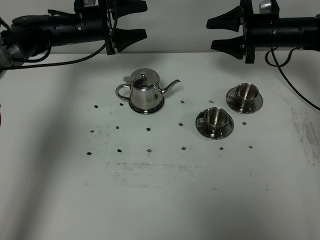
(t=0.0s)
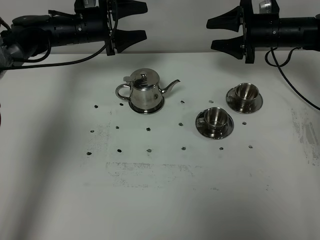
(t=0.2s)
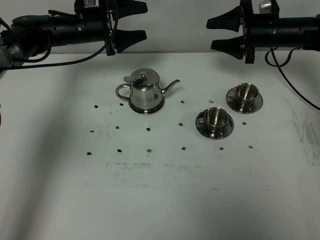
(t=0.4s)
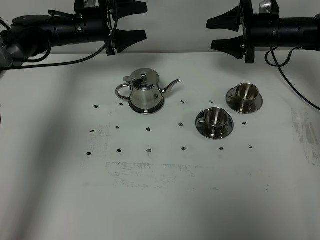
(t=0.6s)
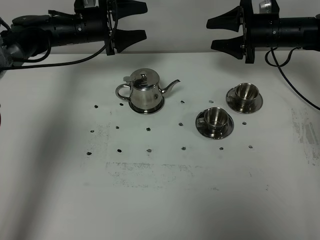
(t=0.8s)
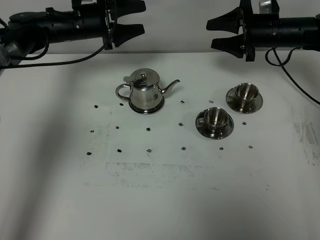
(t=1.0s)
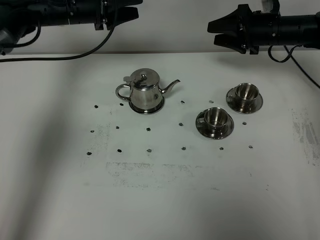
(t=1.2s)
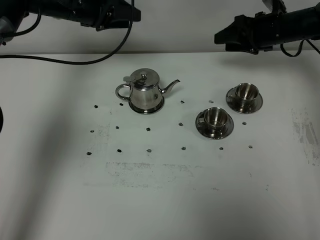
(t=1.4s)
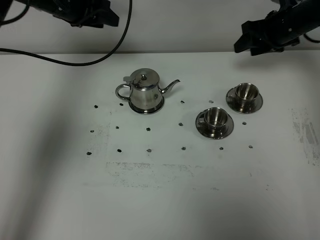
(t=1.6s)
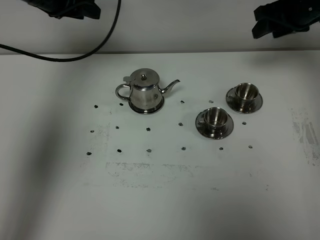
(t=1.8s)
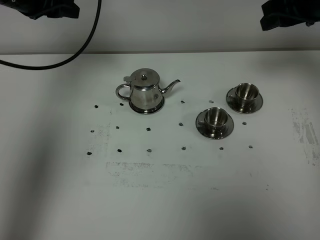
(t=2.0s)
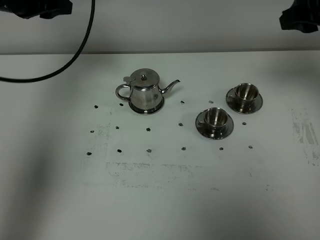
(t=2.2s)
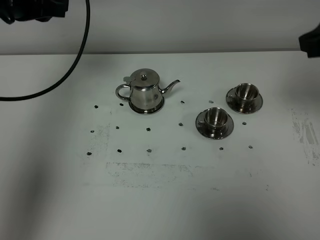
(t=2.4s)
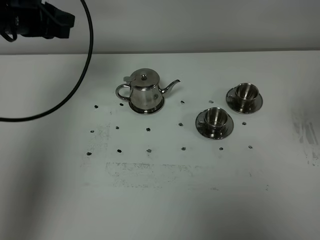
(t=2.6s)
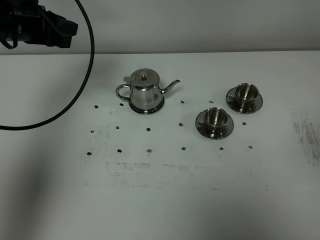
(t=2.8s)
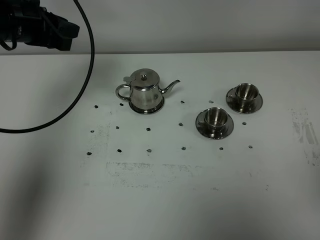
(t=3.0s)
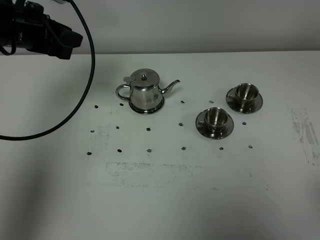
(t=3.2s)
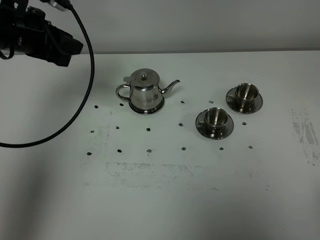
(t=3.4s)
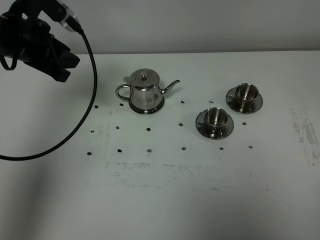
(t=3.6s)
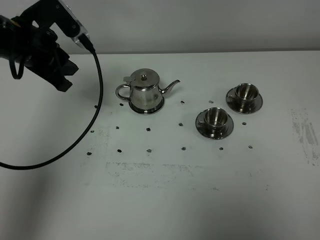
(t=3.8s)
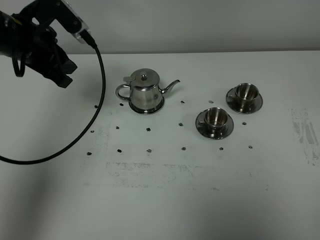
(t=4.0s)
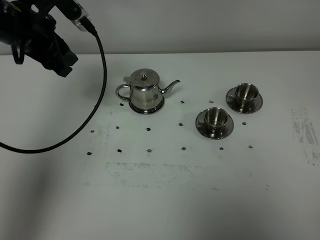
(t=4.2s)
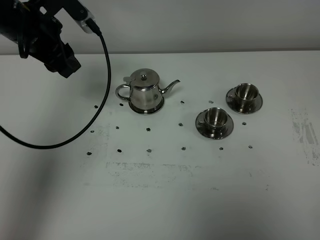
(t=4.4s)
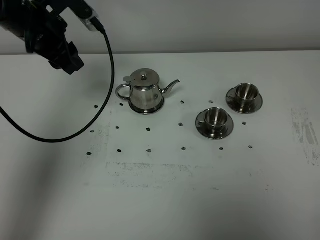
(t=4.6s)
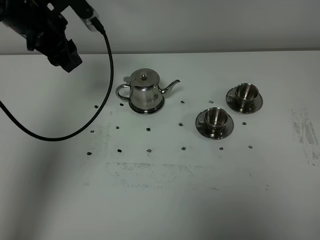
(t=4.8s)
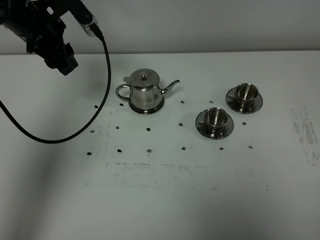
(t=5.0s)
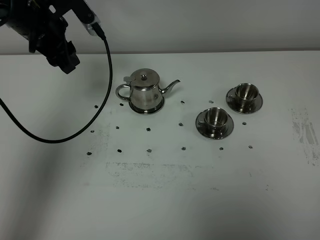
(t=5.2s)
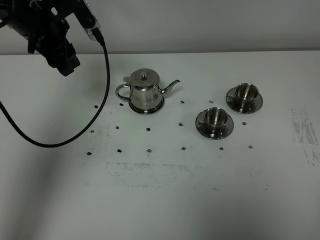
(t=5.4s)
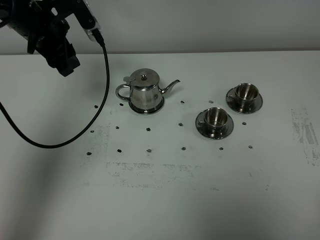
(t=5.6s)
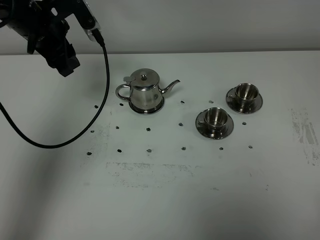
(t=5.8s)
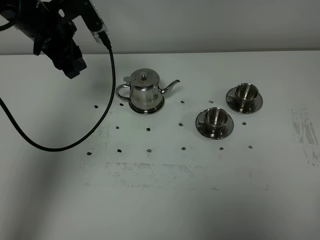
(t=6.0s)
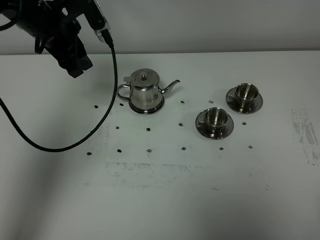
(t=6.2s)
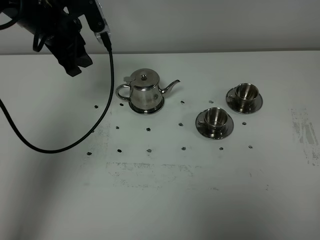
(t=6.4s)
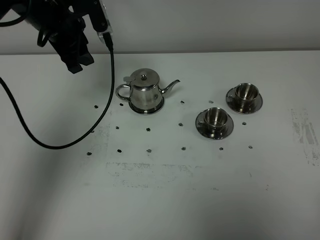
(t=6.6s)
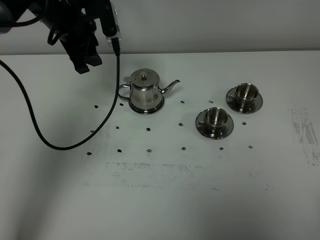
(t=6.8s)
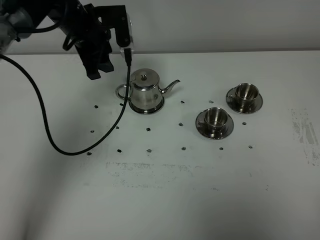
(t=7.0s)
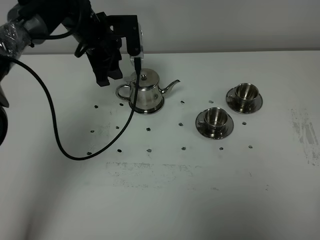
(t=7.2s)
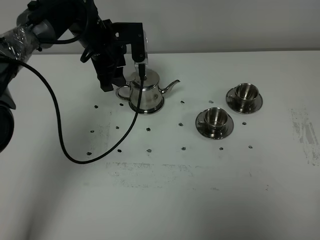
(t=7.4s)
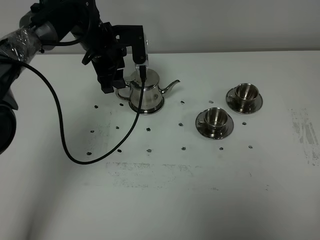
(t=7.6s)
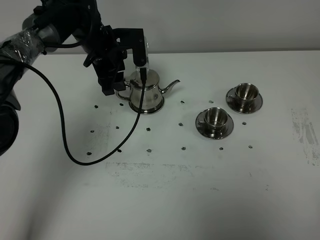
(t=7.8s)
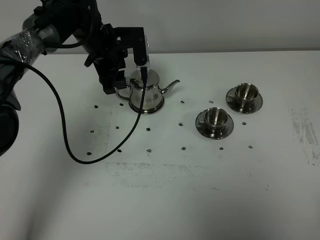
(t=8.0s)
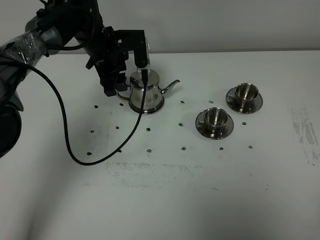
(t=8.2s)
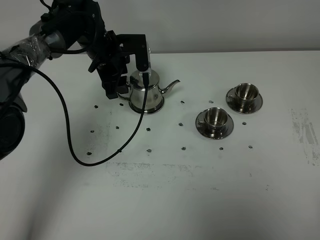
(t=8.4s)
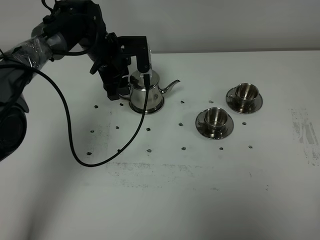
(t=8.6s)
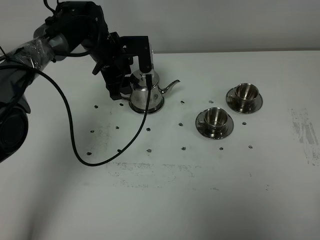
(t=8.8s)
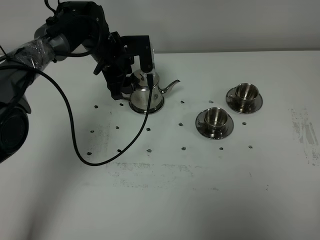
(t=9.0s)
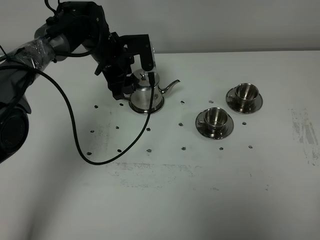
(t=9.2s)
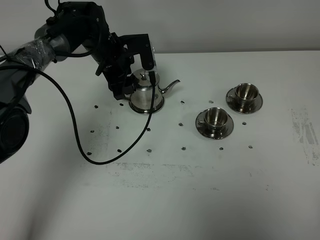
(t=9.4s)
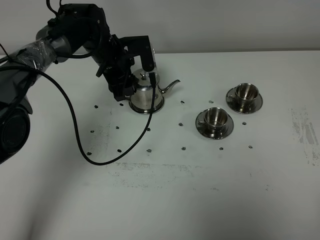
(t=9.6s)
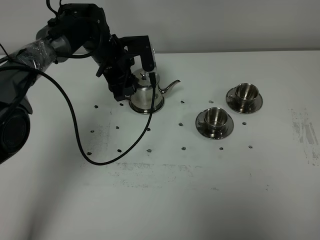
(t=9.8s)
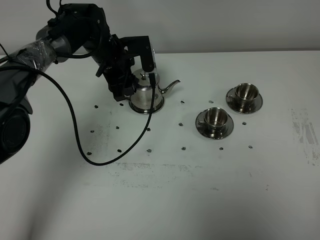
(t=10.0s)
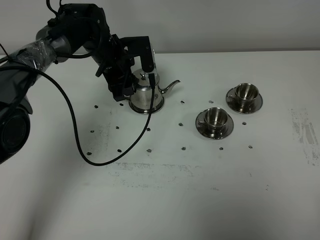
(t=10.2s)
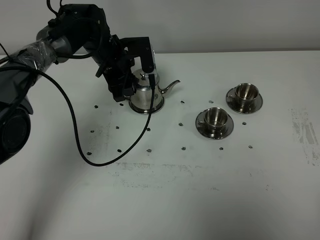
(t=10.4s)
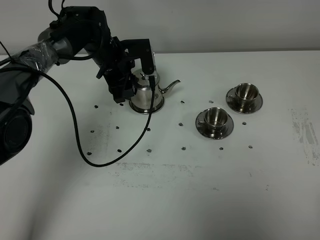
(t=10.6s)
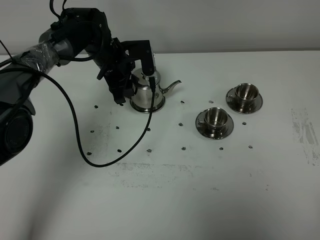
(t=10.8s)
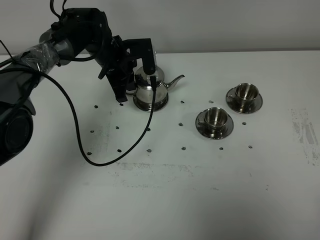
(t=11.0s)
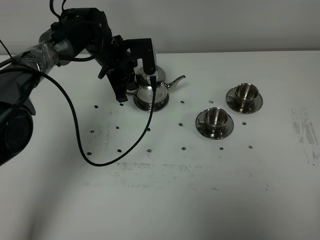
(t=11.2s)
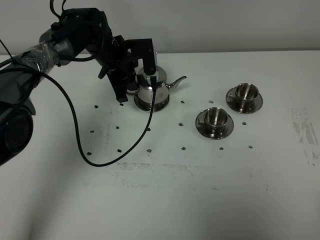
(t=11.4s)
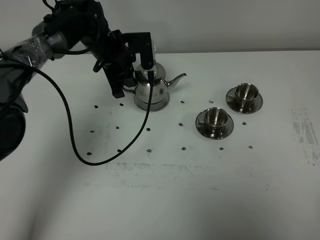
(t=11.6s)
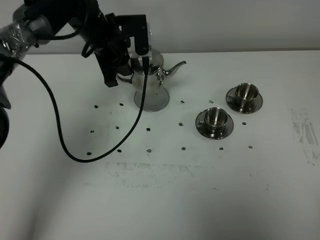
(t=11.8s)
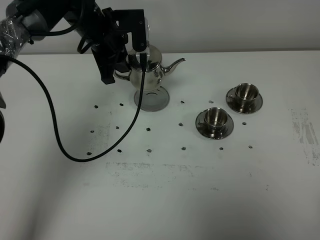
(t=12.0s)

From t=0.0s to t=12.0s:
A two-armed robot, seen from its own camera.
Task of the whole recording: grasp the stainless steel teapot and pour the tea into the two stainless steel teacups one by one, put the stainless steel teapot back in its original place.
Step, from t=0.0s to t=11.6s: Pick up the teapot with the left gripper.
From t=0.0s to t=1.6s: The right gripper ends up approximately 5 cm from where it was, and closes up. Meanwhile the left gripper travels upward by some 10 cm, and closes.
From t=1.6s to t=3.0s: The right gripper travels backward by roughly 50 cm, while the left gripper moves backward, roughly 15 cm.
From t=4.4s to t=6.0s: The grippers move only a little.
From t=6.0s to t=7.6s: The left gripper shifts some 10 cm to the right and downward.
From t=7.6s to t=9.0s: The grippers move only a little.
From t=9.0s to t=10.4s: The two grippers keep their place.
From t=10.4s to t=12.0s: The left gripper shifts roughly 10 cm upward, and closes.

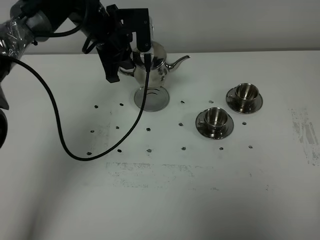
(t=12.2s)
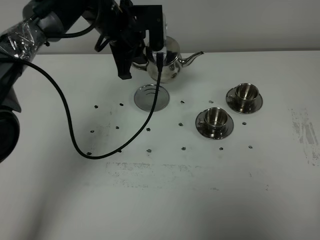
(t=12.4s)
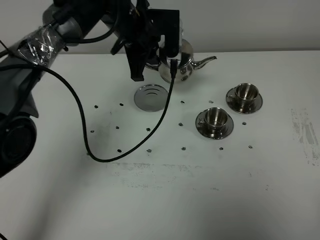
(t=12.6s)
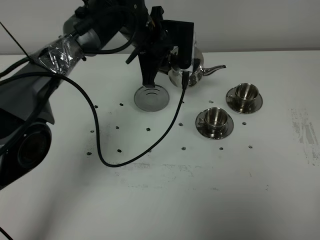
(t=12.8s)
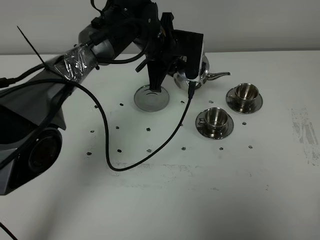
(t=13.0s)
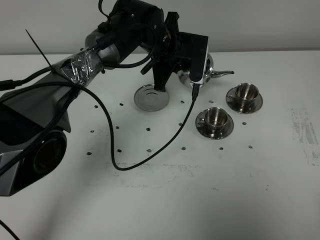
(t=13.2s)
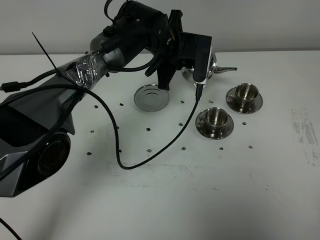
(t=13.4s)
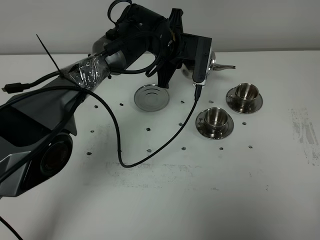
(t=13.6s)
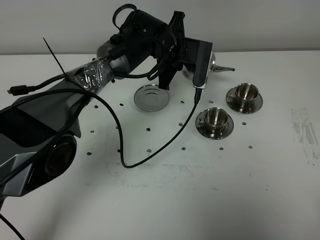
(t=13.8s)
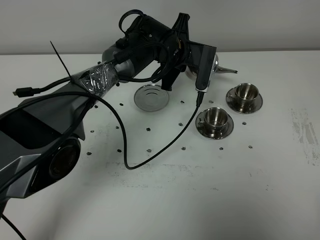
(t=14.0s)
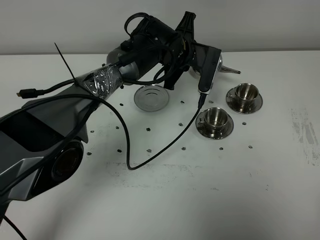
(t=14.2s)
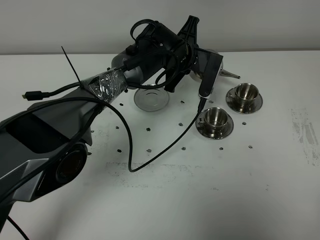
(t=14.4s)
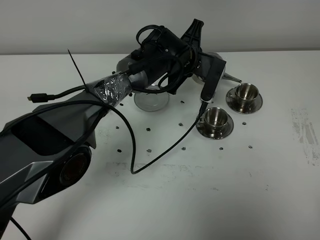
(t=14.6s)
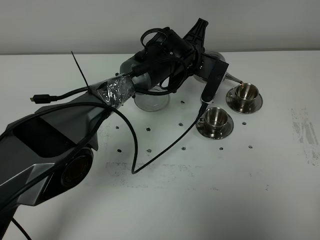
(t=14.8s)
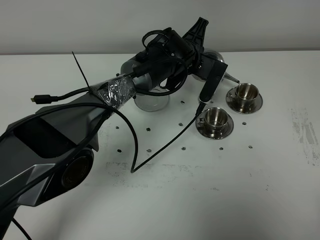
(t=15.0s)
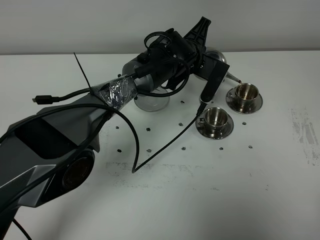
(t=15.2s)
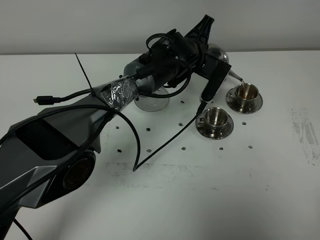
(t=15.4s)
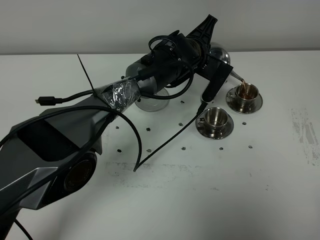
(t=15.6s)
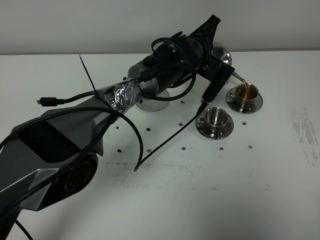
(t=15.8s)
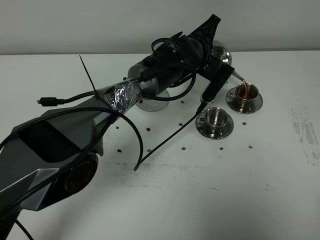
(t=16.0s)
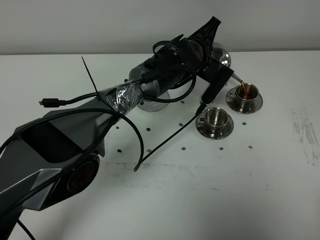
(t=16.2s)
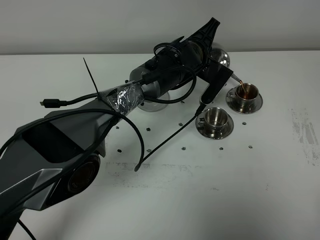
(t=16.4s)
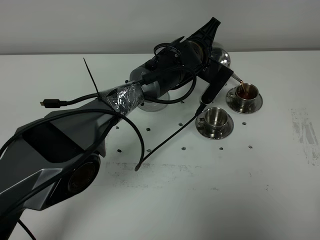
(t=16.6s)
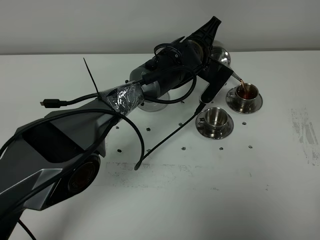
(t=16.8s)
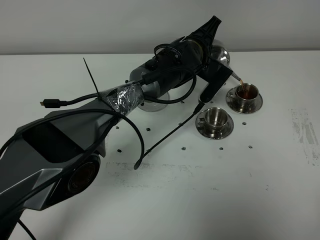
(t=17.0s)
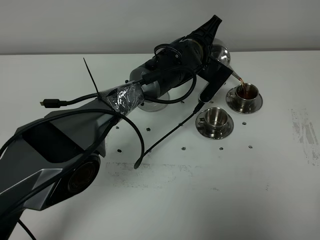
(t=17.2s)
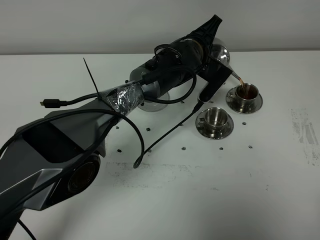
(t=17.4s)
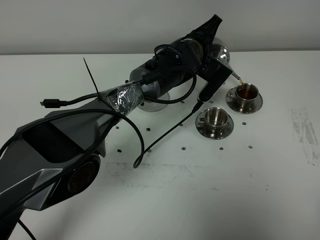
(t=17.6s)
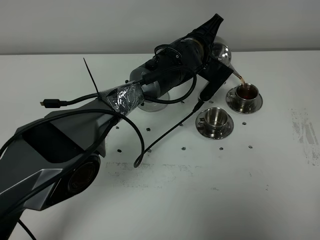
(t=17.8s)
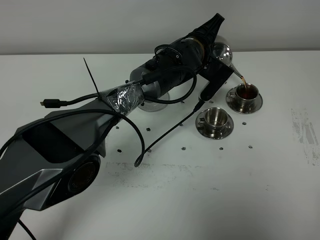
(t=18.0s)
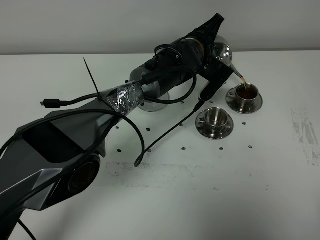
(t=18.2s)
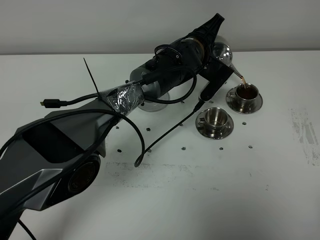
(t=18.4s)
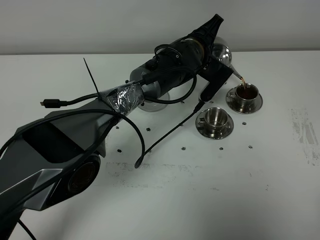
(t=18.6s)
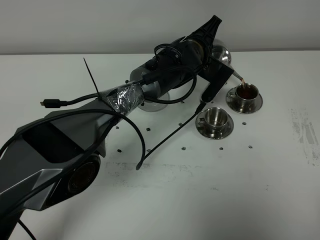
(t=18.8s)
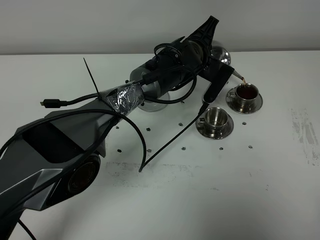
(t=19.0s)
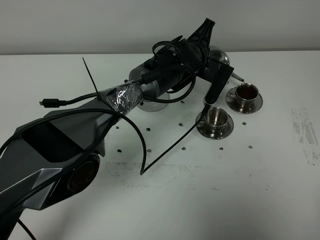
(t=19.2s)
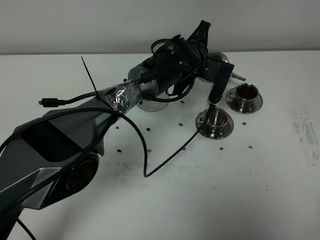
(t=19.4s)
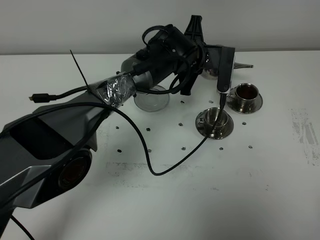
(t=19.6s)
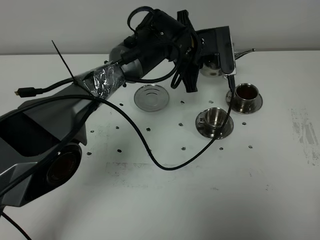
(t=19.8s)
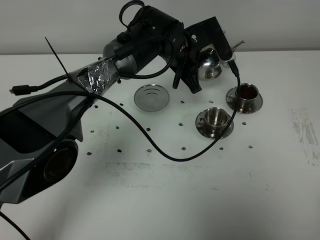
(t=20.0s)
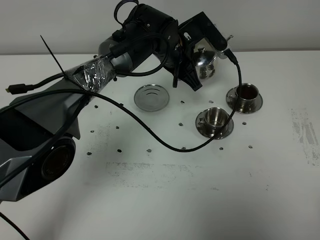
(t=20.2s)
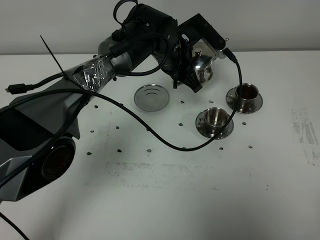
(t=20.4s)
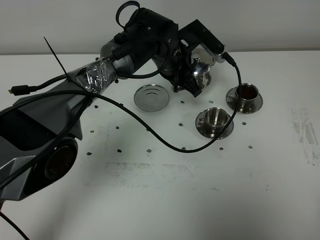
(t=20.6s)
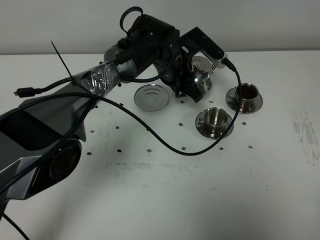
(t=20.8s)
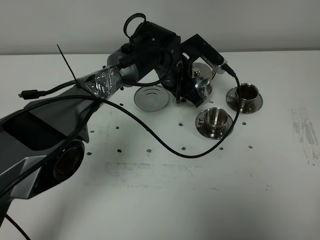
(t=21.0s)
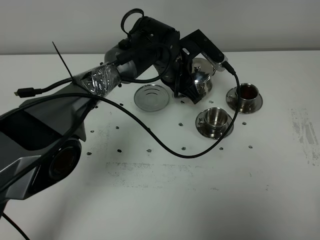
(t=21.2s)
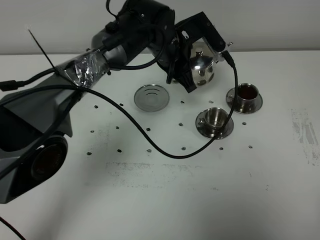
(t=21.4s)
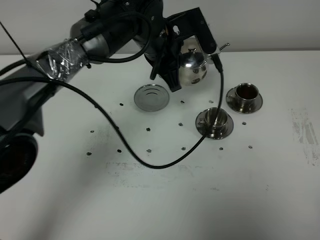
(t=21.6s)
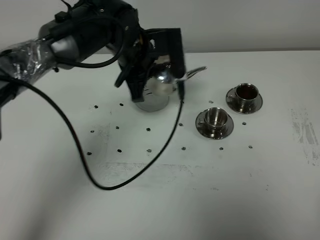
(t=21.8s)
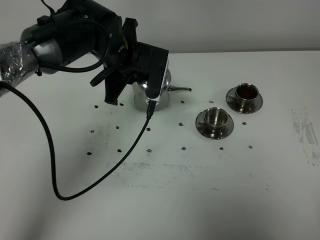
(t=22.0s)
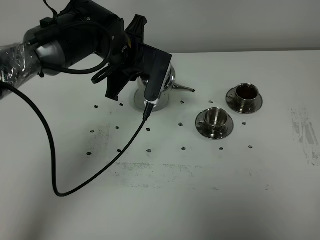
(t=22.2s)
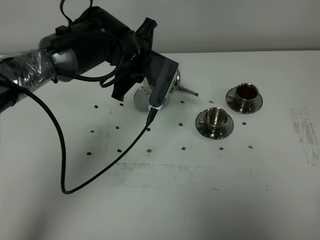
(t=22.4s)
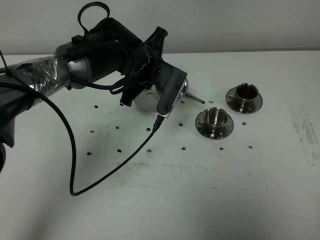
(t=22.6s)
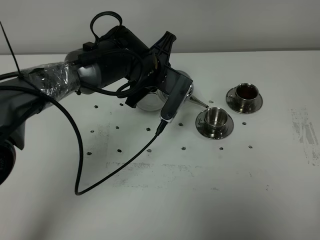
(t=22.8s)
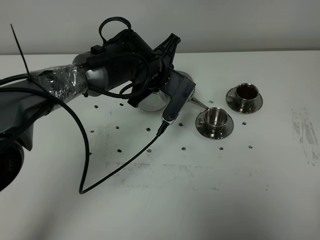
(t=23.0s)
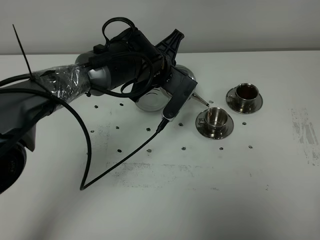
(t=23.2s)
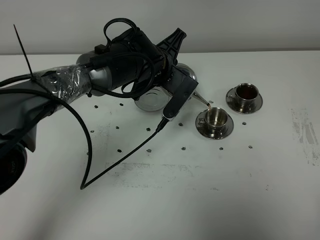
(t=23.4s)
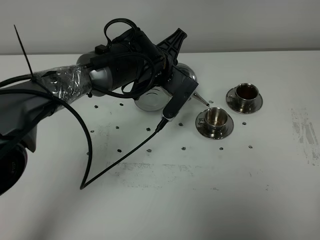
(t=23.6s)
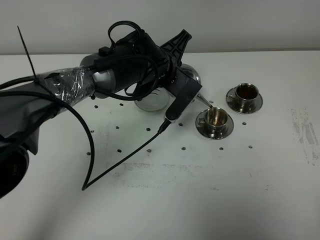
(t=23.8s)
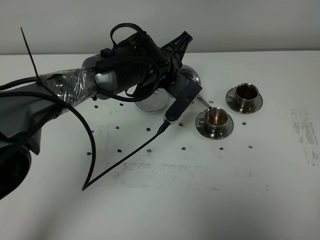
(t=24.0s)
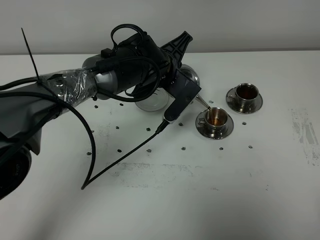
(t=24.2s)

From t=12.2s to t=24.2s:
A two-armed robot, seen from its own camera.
Task of the whole recording: grasp the stainless steel teapot and pour the tea into the two stainless steel teacups one by one, put the stainless steel teapot back in its original place.
From t=12.2s to t=13.8s: The left gripper shifts roughly 15 cm to the right and downward.
From t=15.2s to t=18.2s: The grippers move only a little.
From t=21.2s to t=22.6s: The left gripper heads to the left, covering some 5 cm.
From t=22.6s to t=24.2s: The grippers move only a little.
